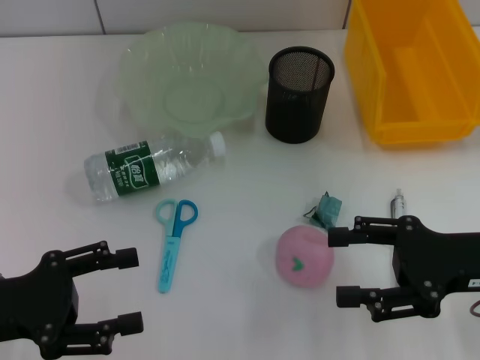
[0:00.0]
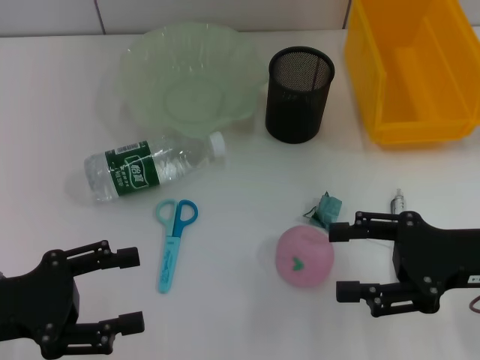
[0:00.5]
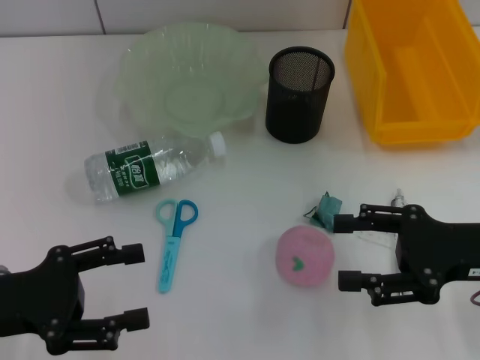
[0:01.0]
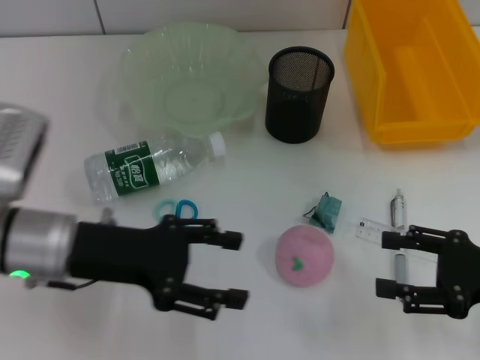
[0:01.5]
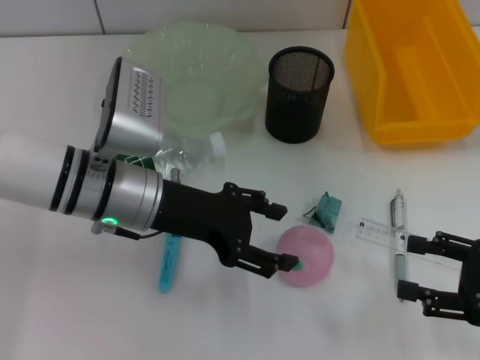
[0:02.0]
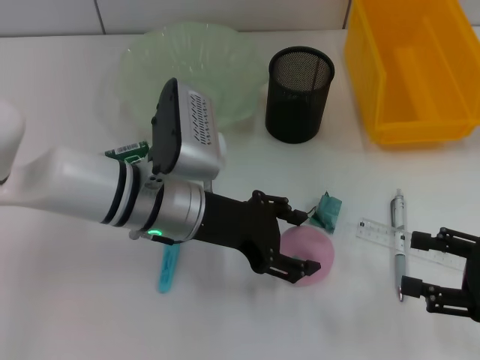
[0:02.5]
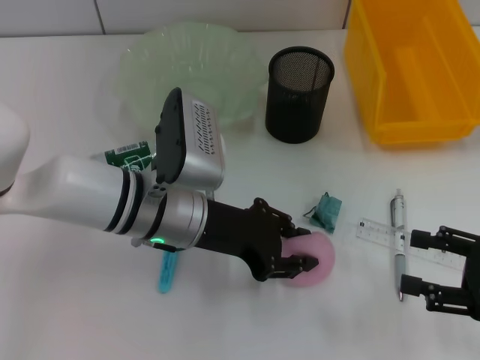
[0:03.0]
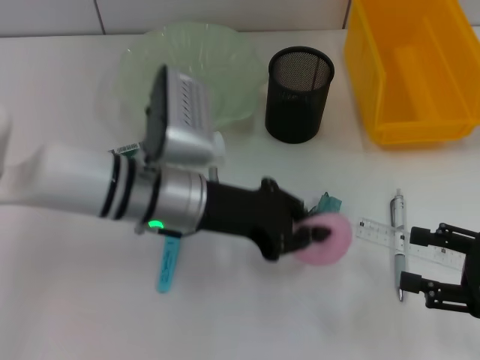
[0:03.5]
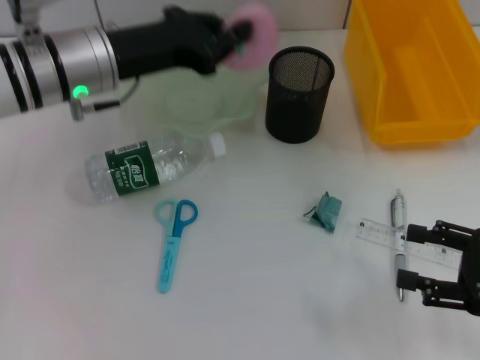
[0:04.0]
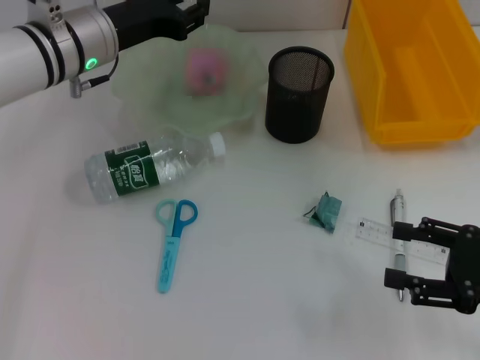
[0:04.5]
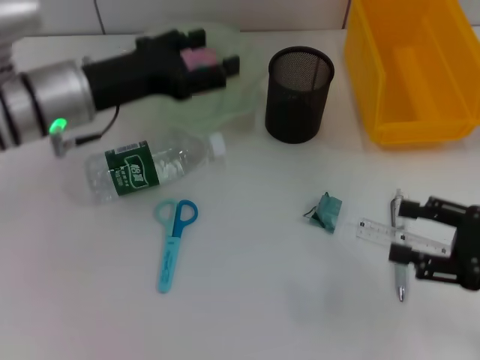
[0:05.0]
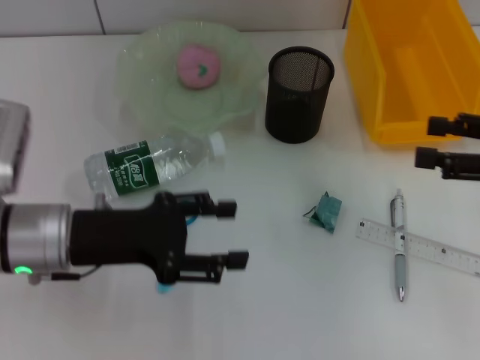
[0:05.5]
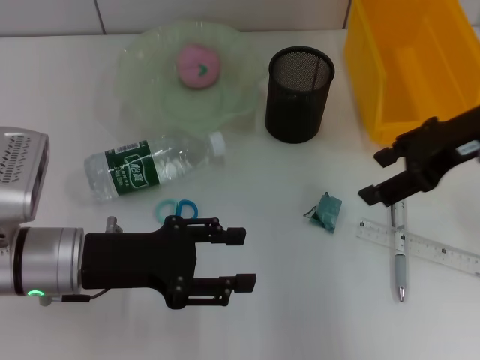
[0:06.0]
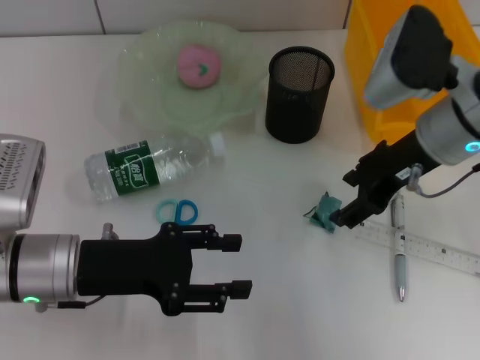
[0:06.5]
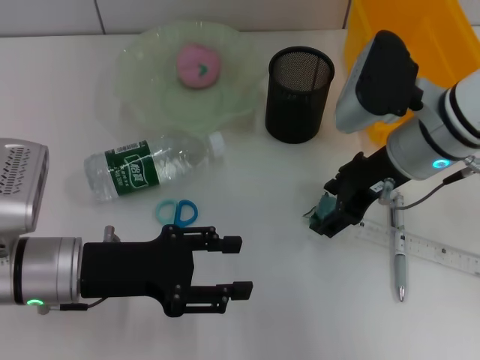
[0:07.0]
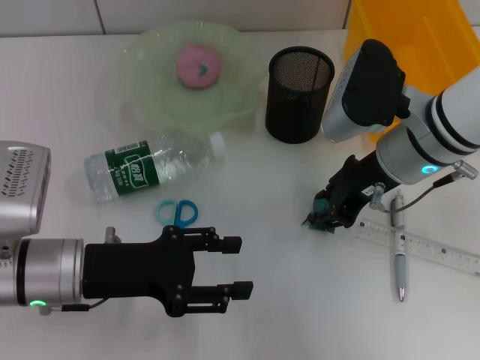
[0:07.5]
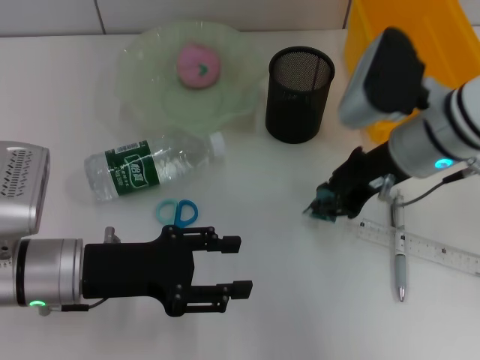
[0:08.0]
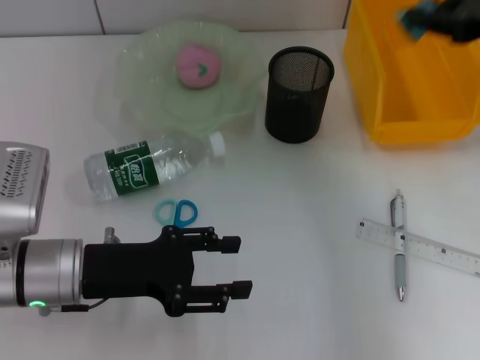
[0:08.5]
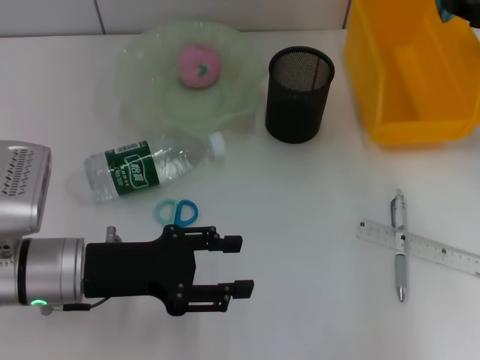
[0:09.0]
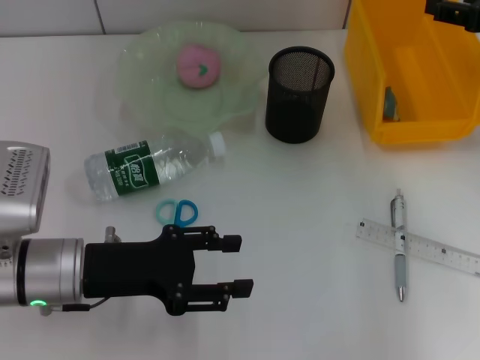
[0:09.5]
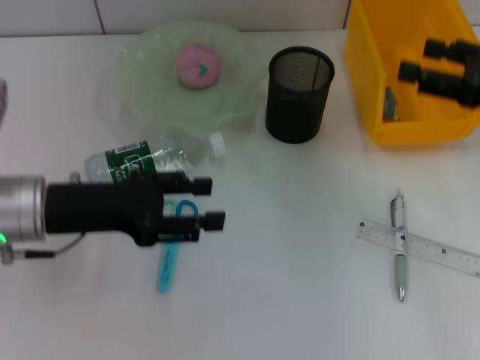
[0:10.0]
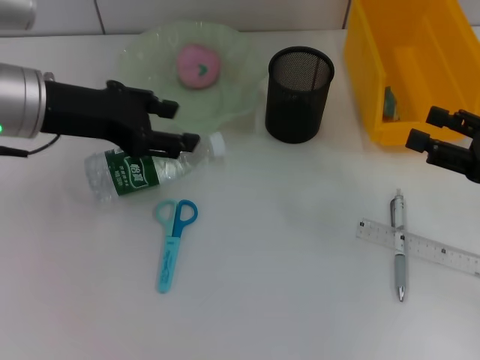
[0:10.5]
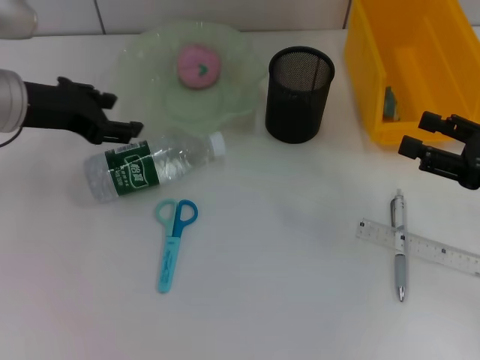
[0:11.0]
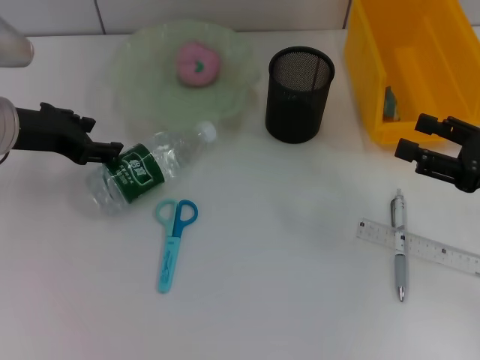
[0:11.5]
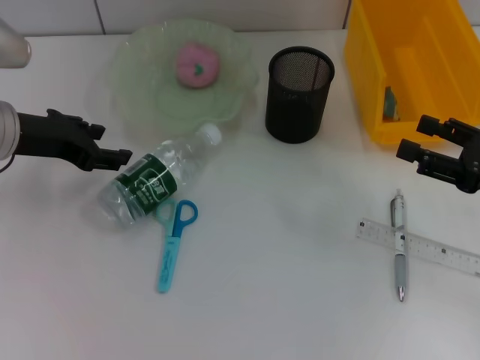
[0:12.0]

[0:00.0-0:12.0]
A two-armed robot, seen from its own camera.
Step, 0.0 to 3.0 s: Grab the peach with the left hand.
Step, 3.5 to 4.5 s: Place the peach into the fruit bowl with the left hand.
Step, 5.0 to 7.5 s: Grab the plastic with the right hand.
Step, 8.0 to 9.0 s: Place the plastic into the trash can with the right hand.
0.0 to 2.0 s: The right gripper is displaced to the right by some 5 cm; the left gripper heads to the right and forward, covering approximately 20 cm.
2.0 to 4.0 s: The left gripper heads forward and upward, covering some 10 cm, and closes up.
4.0 to 6.0 s: The left gripper travels backward and downward by about 15 cm, and opens its fingers, while the right gripper heads forward, upward and to the left, covering some 20 cm.
6.0 to 8.0 s: The right gripper goes roughly 10 cm to the left and downward, and closes its fingers.
8.0 to 10.0 s: The right gripper shifts approximately 15 cm to the right, and opens its fingers.
10.0 to 12.0 s: The left gripper travels forward by roughly 10 cm. The right gripper shifts roughly 5 cm downward.

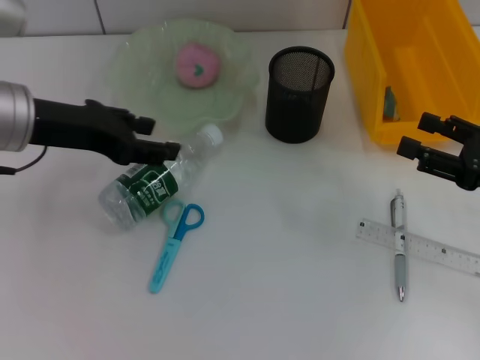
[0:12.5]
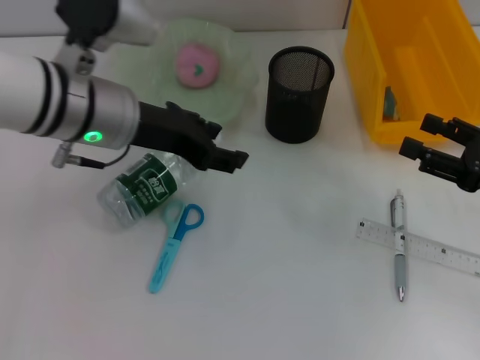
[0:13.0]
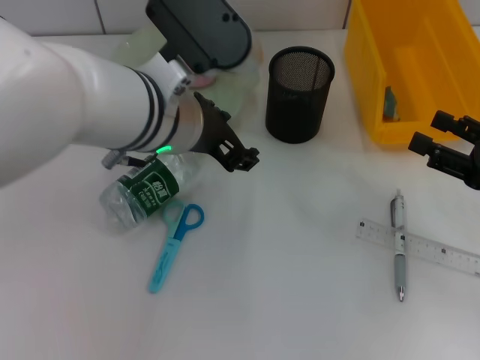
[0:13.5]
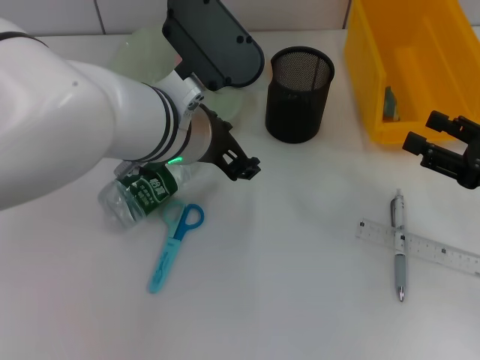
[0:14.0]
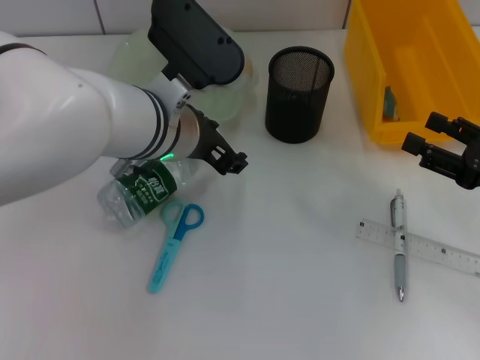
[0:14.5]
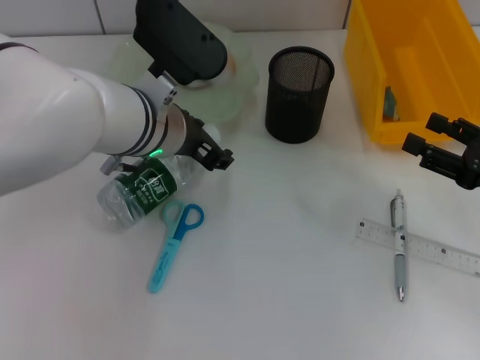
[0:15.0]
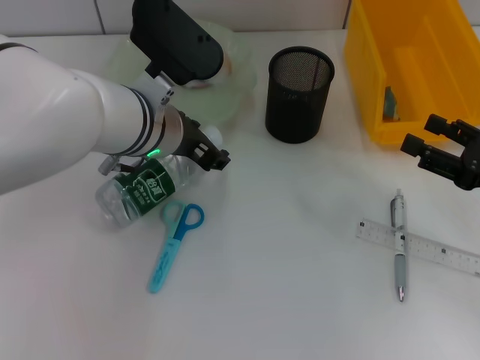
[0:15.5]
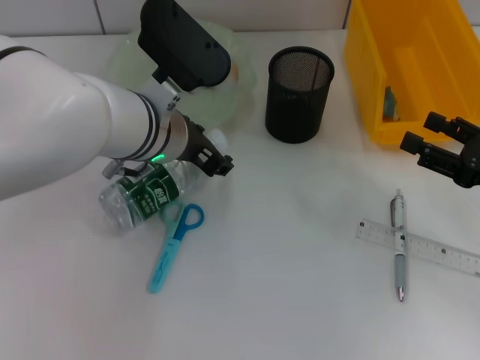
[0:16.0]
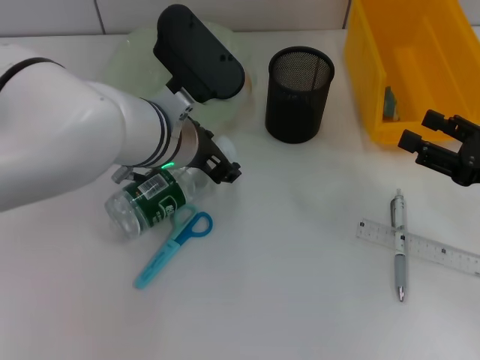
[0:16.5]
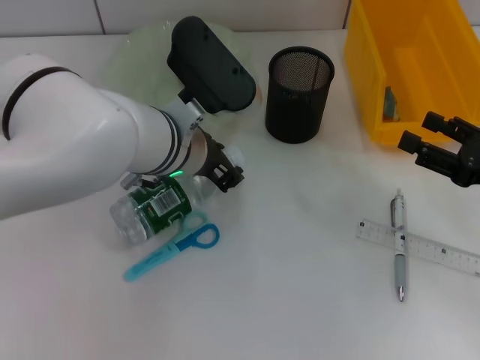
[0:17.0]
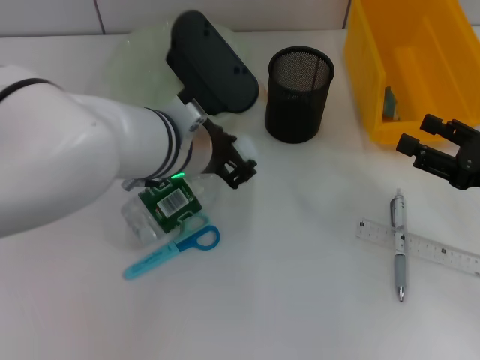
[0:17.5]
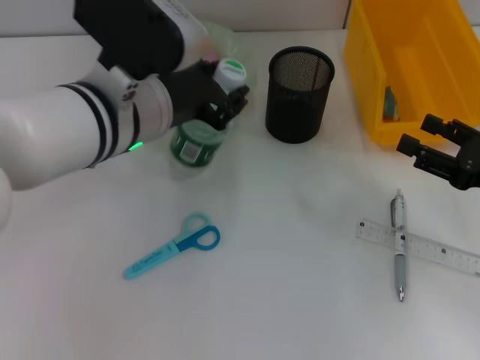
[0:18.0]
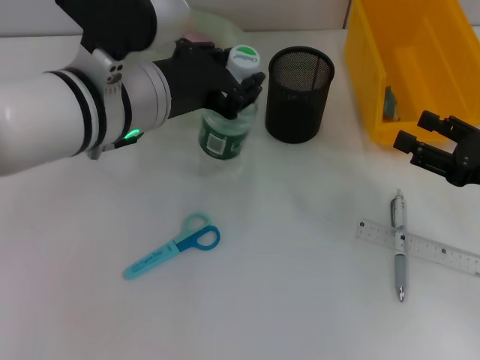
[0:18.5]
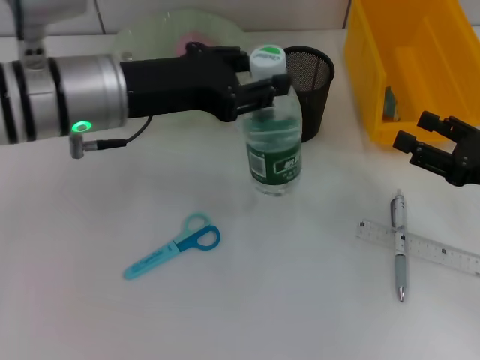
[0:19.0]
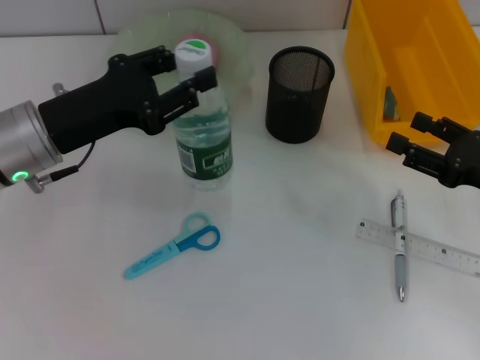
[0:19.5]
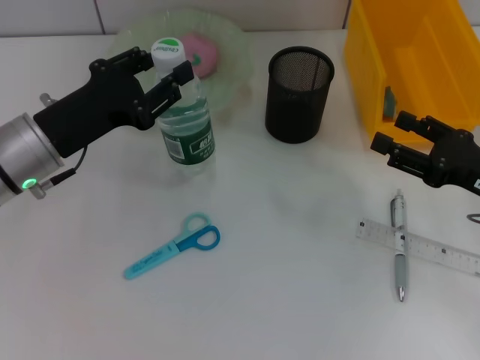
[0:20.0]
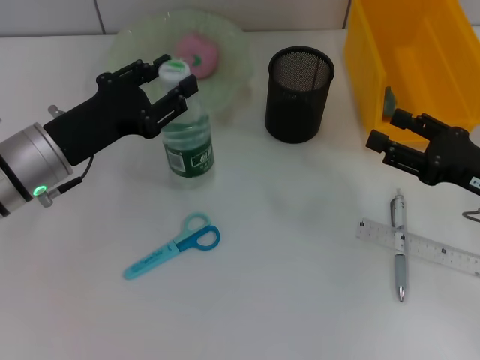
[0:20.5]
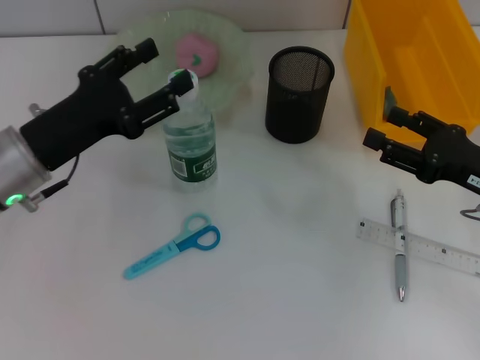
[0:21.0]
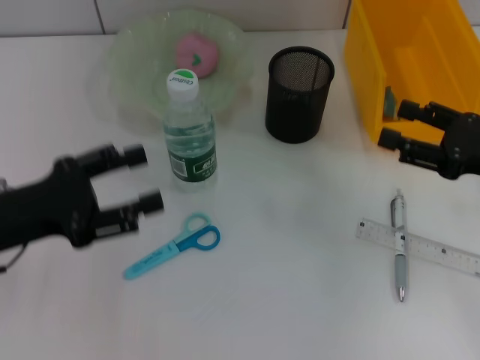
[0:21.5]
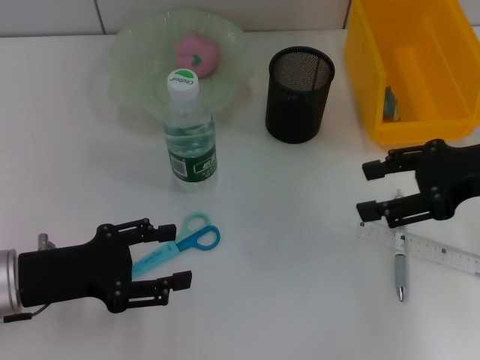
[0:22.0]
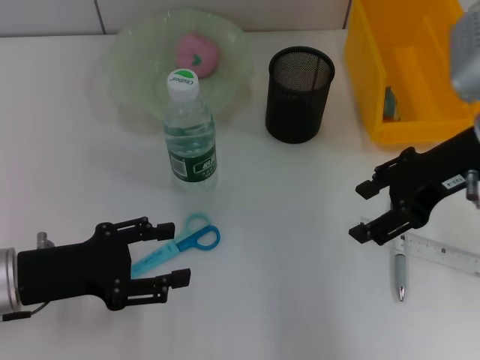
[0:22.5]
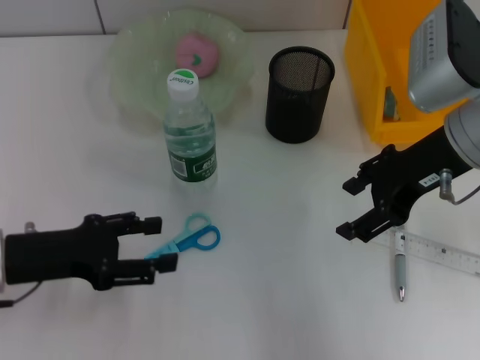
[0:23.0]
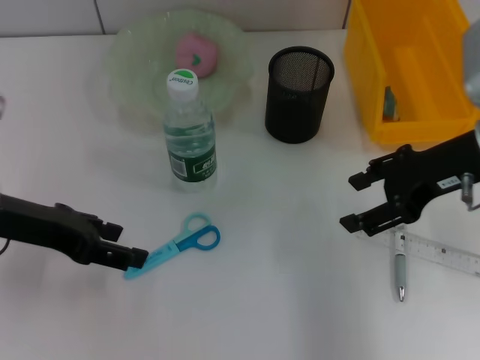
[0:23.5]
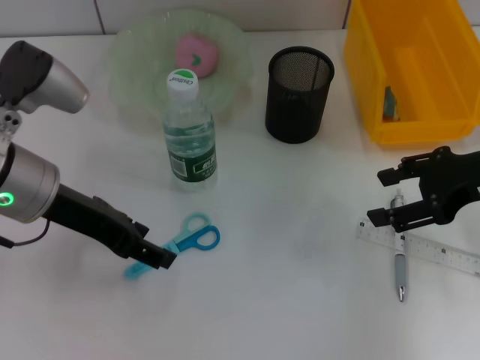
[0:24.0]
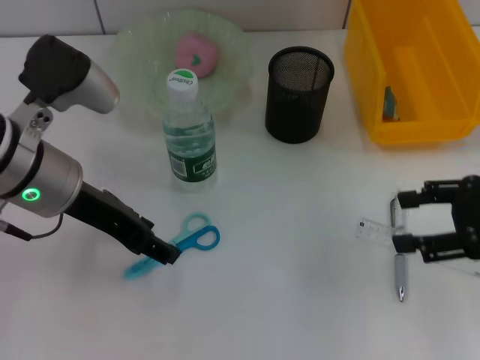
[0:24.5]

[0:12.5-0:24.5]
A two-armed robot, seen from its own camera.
Step, 12.5 to 17.0 s: Grab the water bottle with the left hand.
Step, 17.5 to 20.5 s: Place the water bottle on the table with the left hand.
12.5 to 14.5 s: The left gripper heads to the right, covering approximately 15 cm.
14.5 to 16.5 s: The grippers move only a little.
16.5 to 18.5 s: The left gripper is displaced upward by roughly 5 cm.
18.5 to 20.5 s: The left gripper goes some 15 cm to the left and downward.
20.5 to 22.5 s: The right gripper is displaced upward, to the left and forward by approximately 15 cm; the left gripper travels backward by roughly 10 cm, and opens its fingers.
22.5 to 24.5 s: The left gripper shifts approximately 15 cm upward, forward and to the right. The right gripper is displaced to the right, backward and downward by approximately 10 cm.

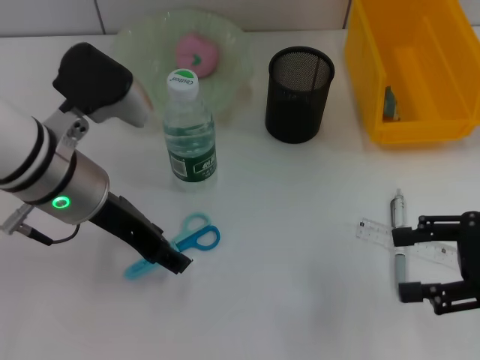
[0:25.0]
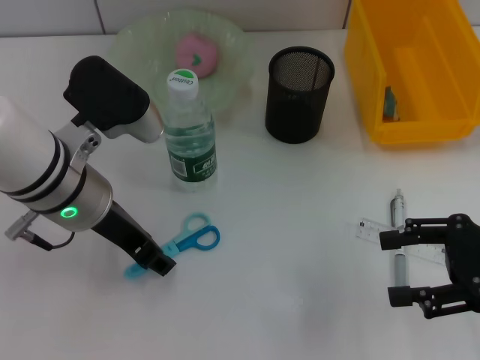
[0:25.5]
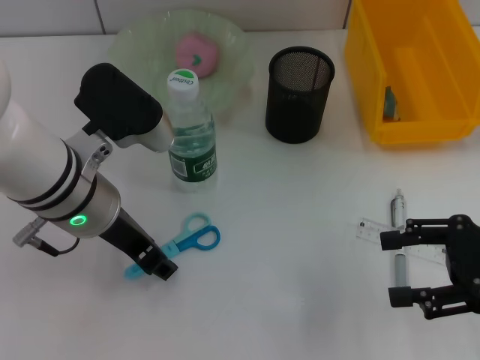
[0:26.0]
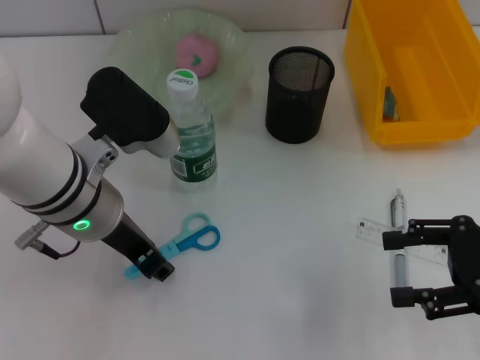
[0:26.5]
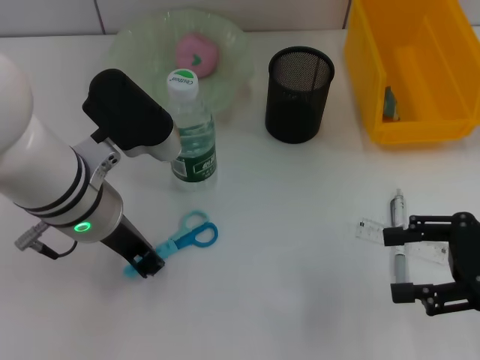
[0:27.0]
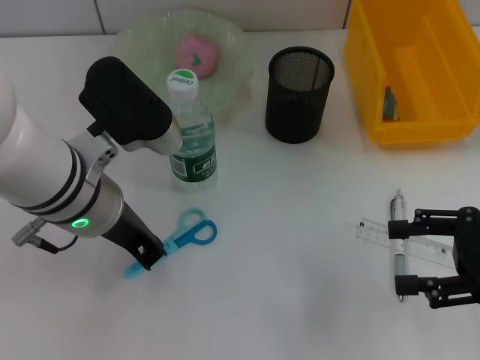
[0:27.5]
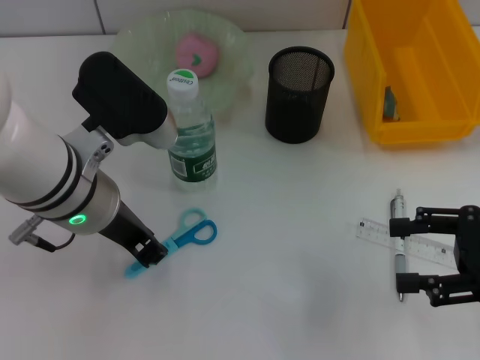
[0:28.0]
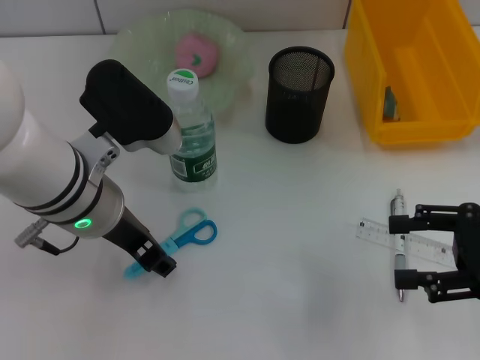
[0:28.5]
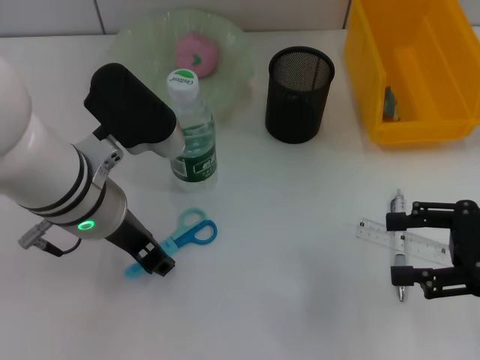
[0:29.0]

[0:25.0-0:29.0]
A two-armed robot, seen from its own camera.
25.0 to 27.0 s: The left gripper closes.
27.0 to 29.0 s: The left gripper closes, then reopens.
